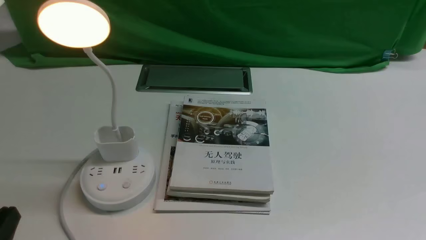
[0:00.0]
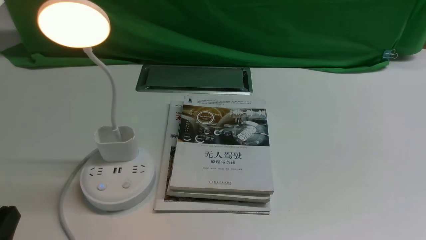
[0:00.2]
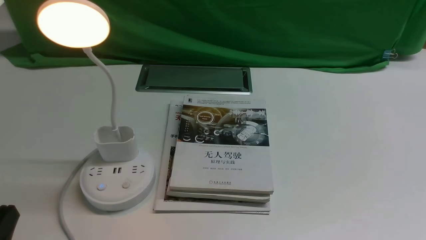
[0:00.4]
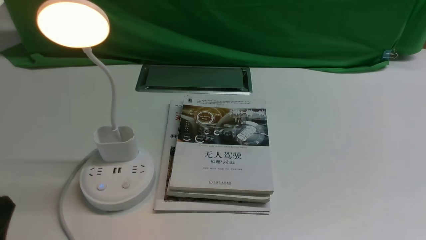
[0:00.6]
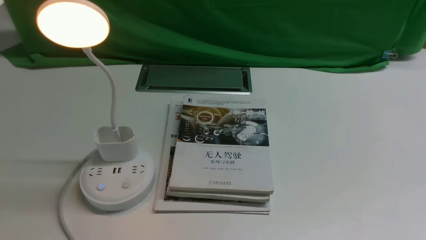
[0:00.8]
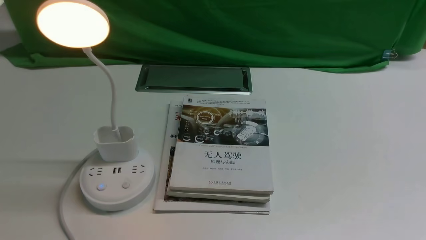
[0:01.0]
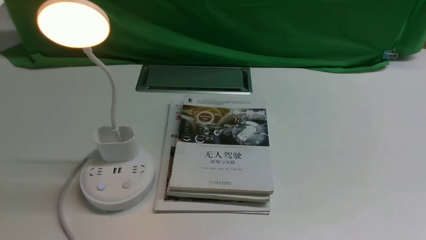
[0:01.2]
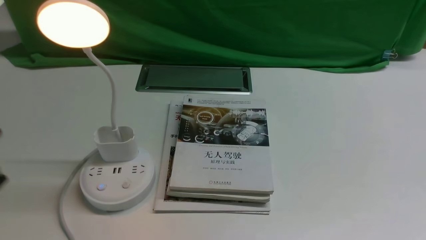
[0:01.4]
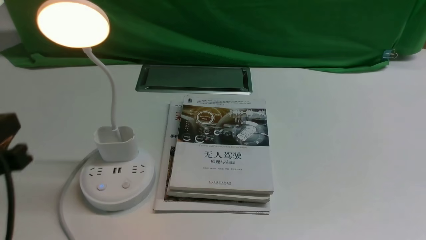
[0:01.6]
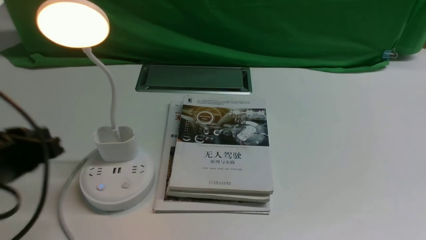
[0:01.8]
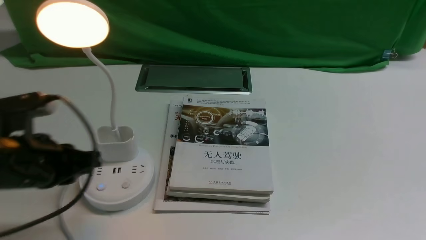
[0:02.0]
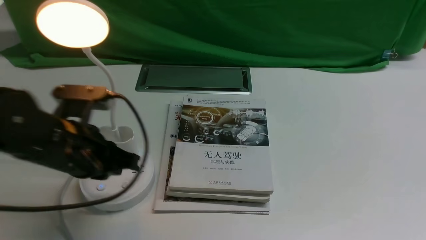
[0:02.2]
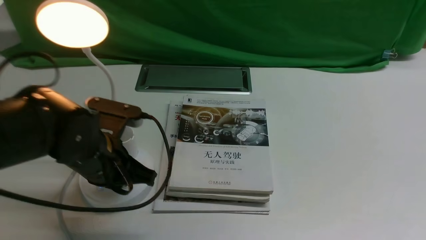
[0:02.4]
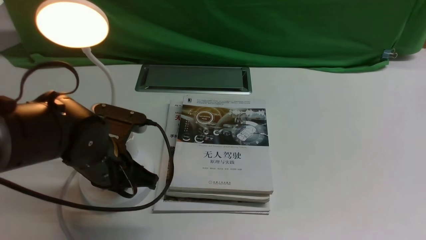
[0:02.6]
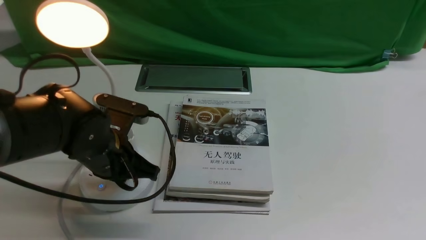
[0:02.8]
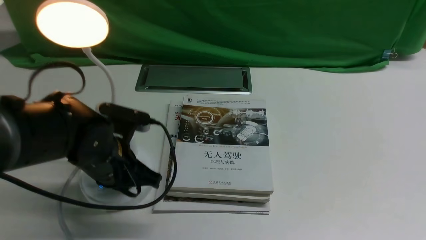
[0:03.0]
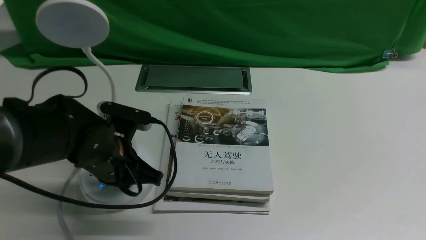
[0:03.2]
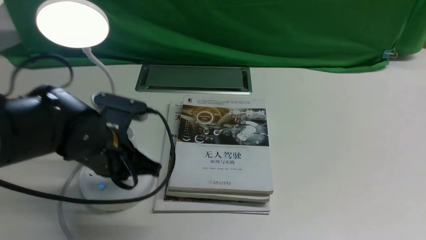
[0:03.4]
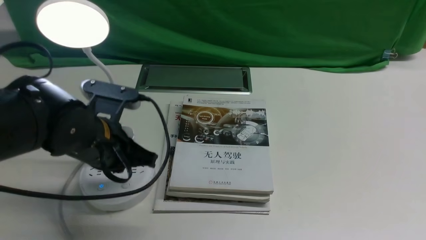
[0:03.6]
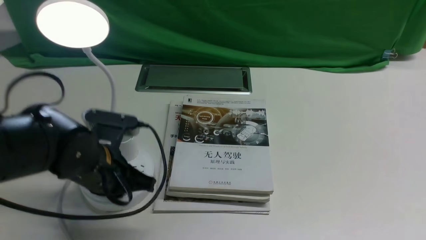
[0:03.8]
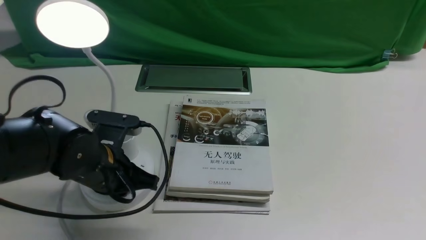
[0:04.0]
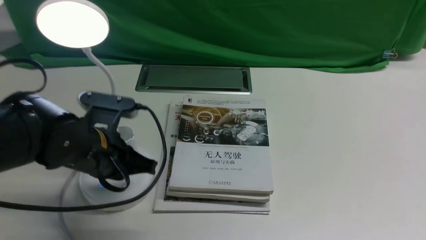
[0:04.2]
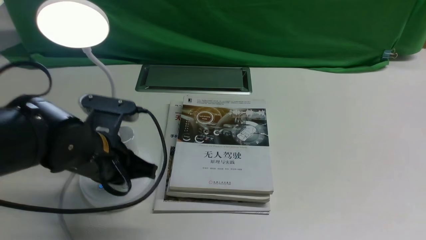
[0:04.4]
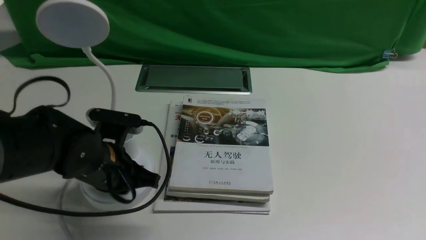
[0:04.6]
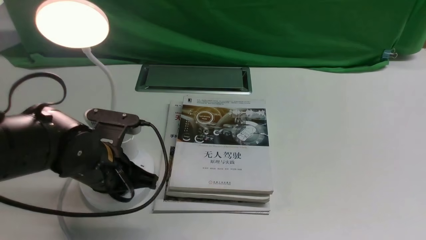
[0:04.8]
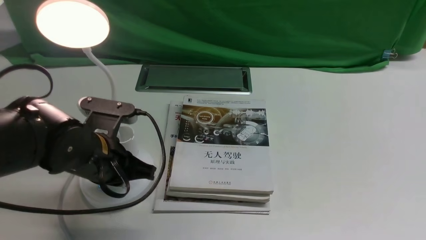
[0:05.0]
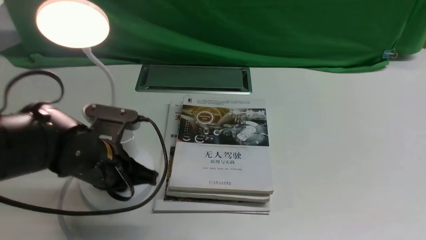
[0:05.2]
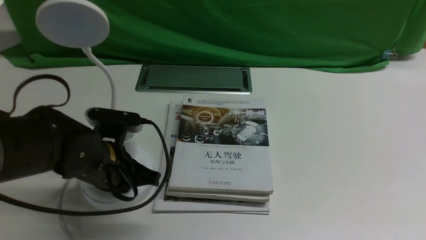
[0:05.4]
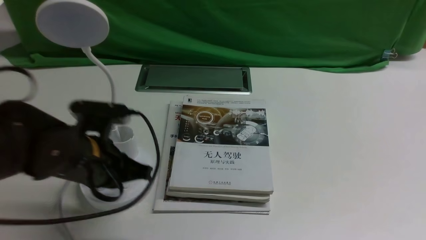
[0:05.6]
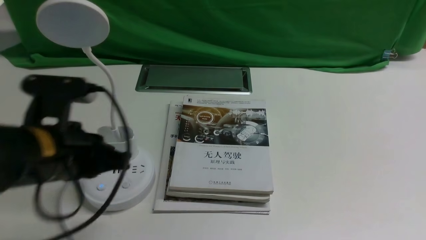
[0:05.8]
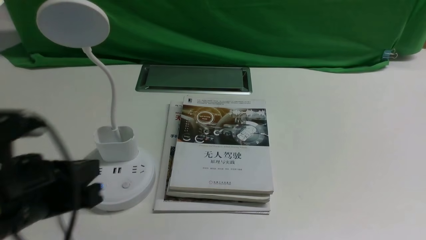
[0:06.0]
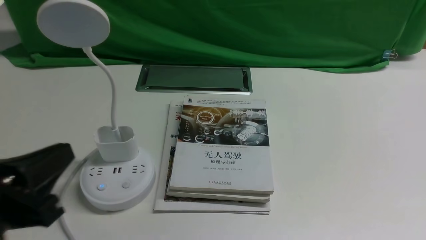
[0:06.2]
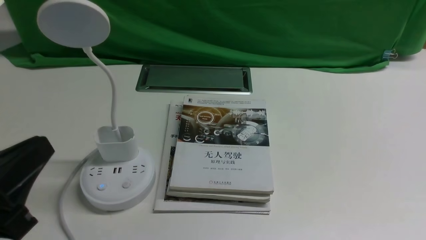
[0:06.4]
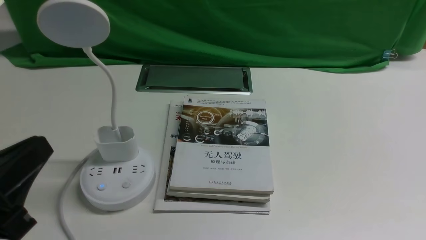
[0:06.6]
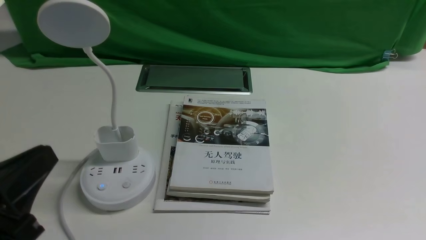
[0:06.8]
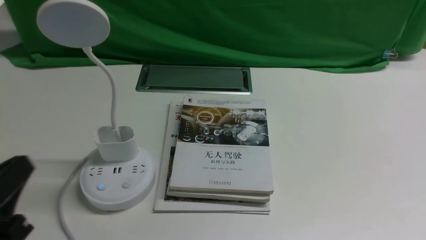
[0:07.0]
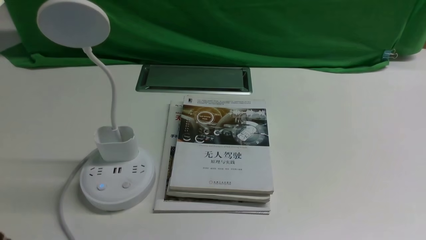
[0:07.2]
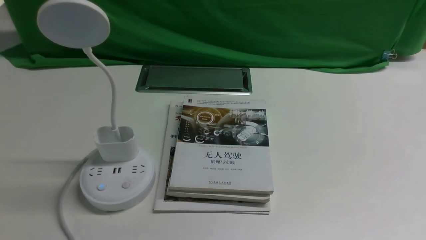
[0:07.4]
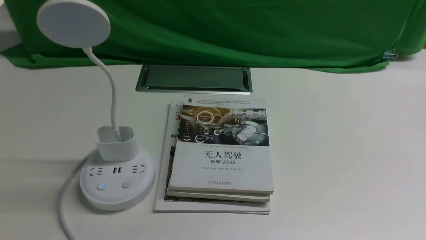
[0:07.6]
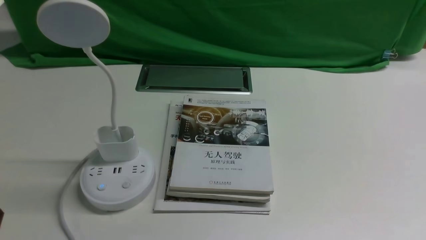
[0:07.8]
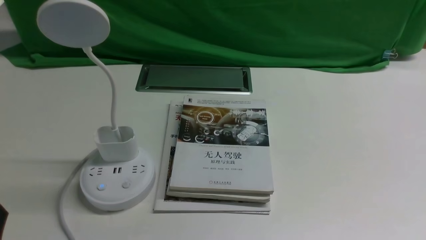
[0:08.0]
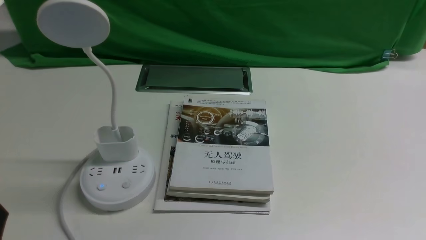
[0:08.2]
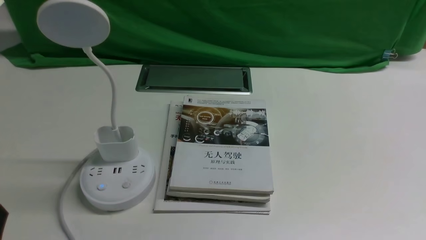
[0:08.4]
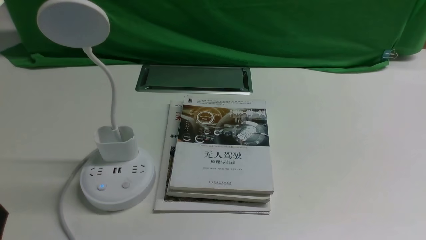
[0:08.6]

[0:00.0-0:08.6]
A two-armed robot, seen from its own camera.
Task of the whole recording: turn off the desk lamp on the white desktop by hand.
Step, 0:00.0 to 0:05.6: use the left arm to press the button switch on the lamp holder.
0:00.0 to 0:01.4: The left gripper shifts about 10 cm upward.
0:01.4 to 0:02.8: The left gripper moves forward, downward and to the right, approximately 25 cm.
0:02.8 to 0:04.4: The grippers move only a little.
0:04.4 to 0:05.8: The left gripper is displaced backward and upward by approximately 10 cm.
0:05.8 to 0:07.2: The left gripper travels backward and to the left by roughly 15 cm.

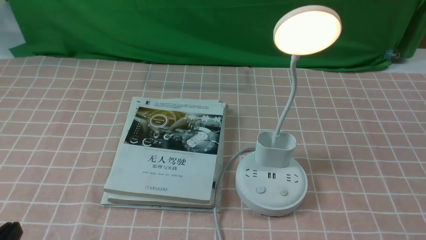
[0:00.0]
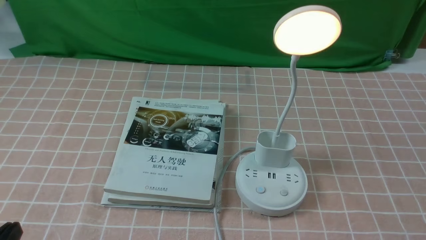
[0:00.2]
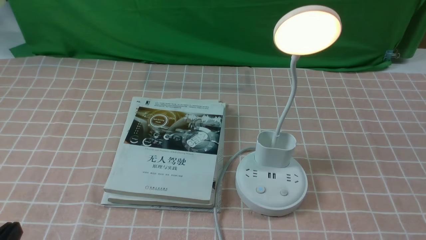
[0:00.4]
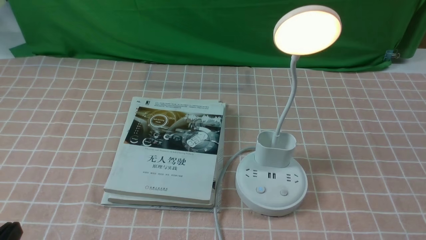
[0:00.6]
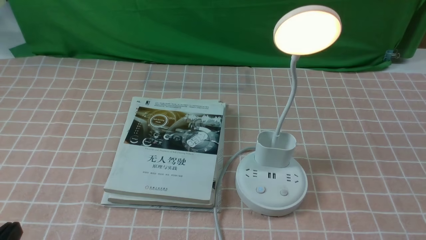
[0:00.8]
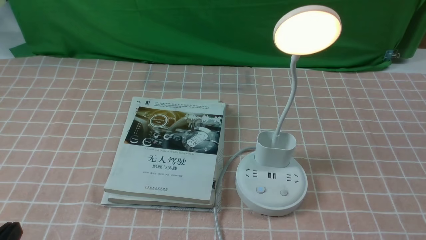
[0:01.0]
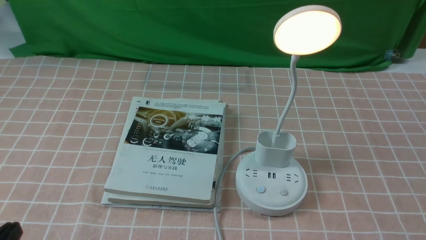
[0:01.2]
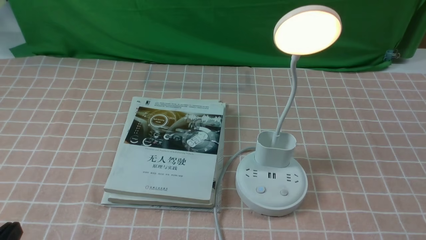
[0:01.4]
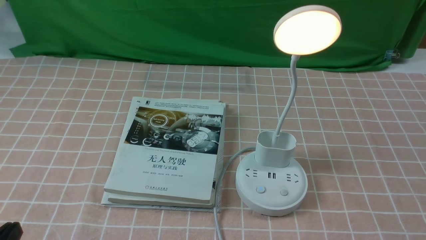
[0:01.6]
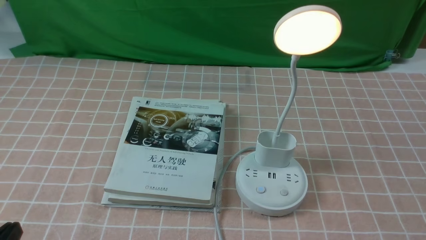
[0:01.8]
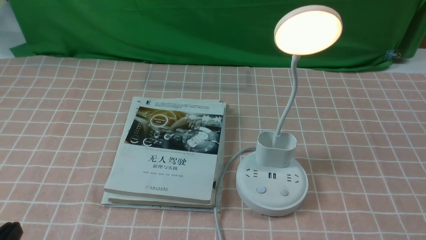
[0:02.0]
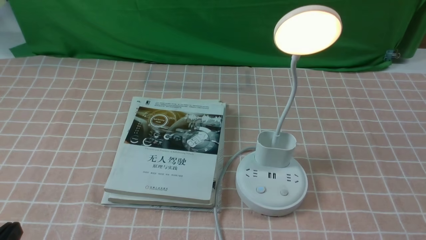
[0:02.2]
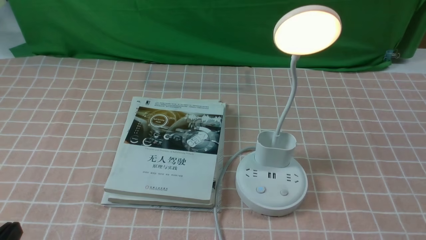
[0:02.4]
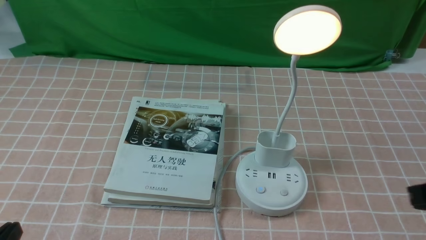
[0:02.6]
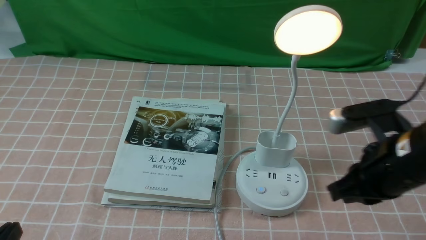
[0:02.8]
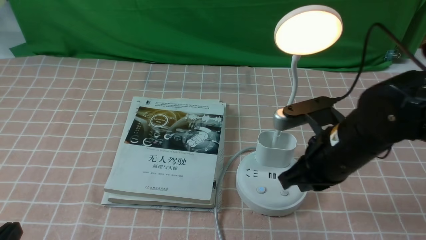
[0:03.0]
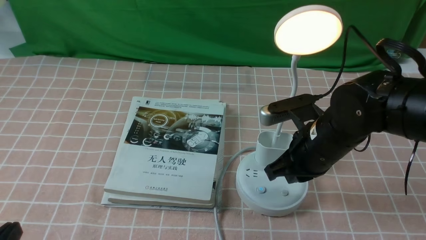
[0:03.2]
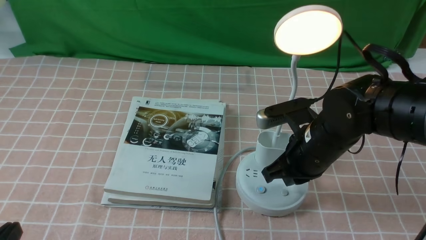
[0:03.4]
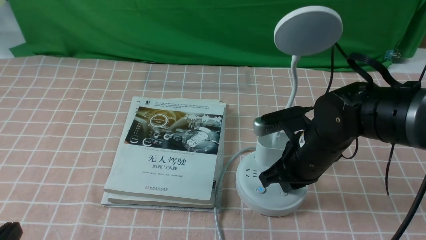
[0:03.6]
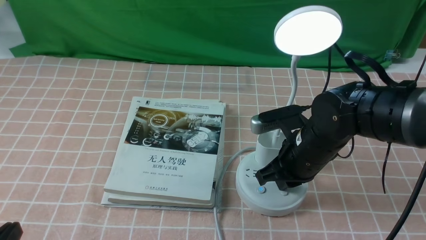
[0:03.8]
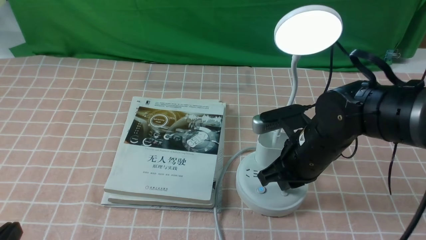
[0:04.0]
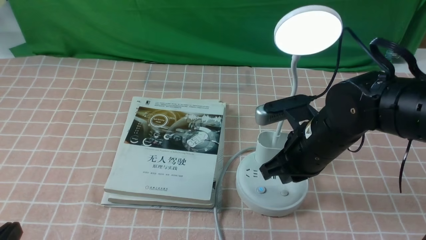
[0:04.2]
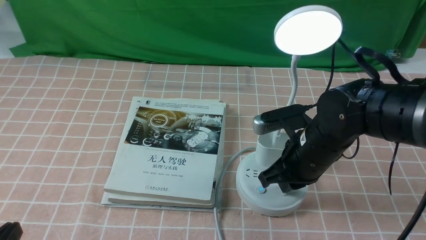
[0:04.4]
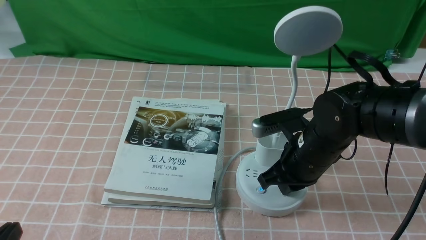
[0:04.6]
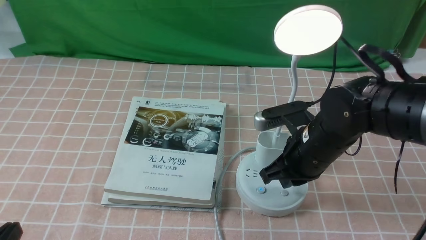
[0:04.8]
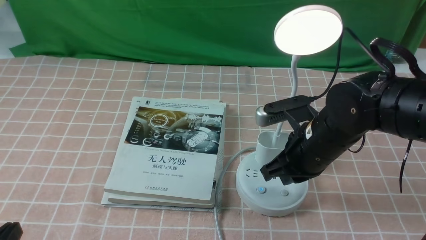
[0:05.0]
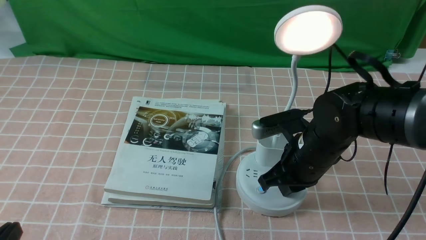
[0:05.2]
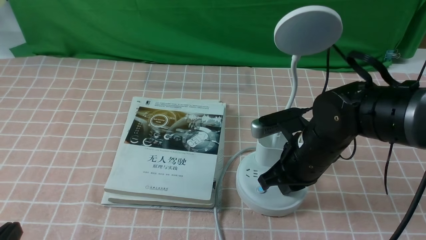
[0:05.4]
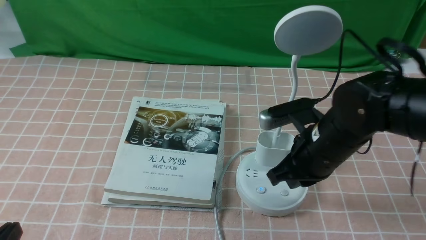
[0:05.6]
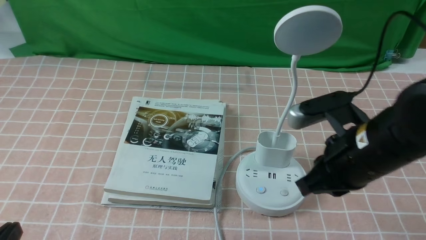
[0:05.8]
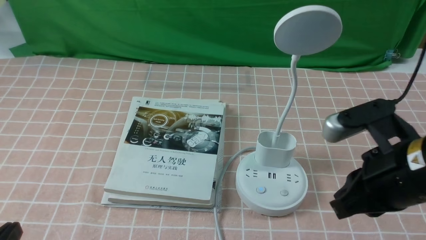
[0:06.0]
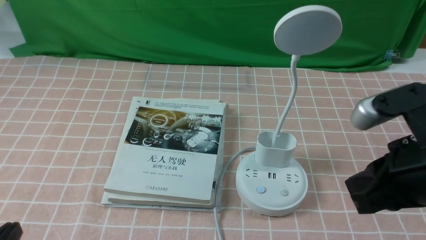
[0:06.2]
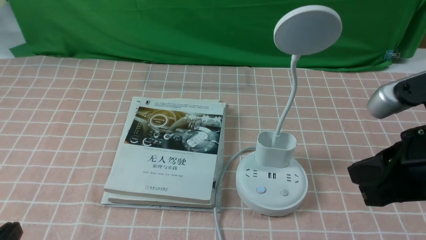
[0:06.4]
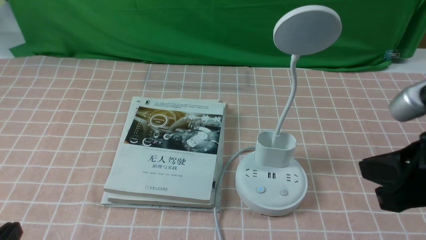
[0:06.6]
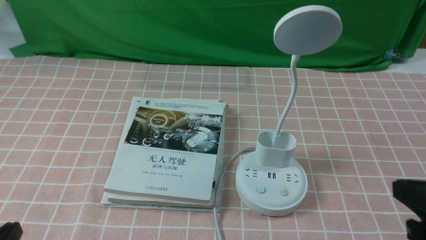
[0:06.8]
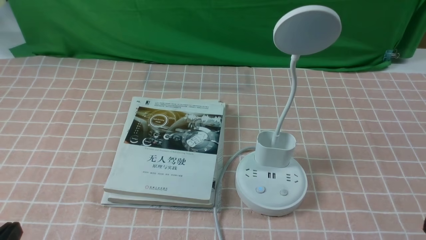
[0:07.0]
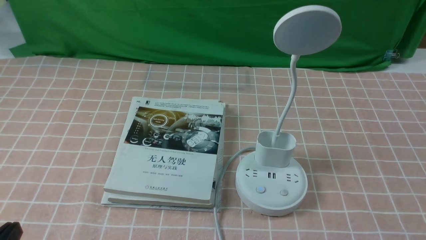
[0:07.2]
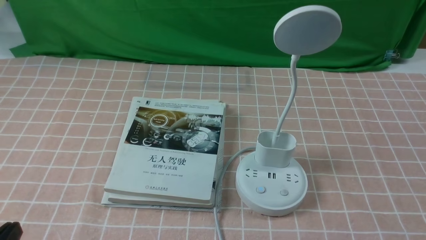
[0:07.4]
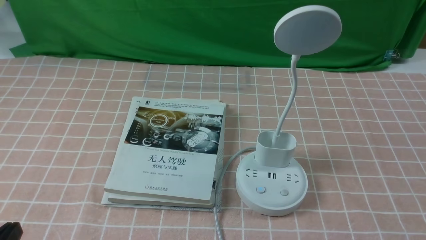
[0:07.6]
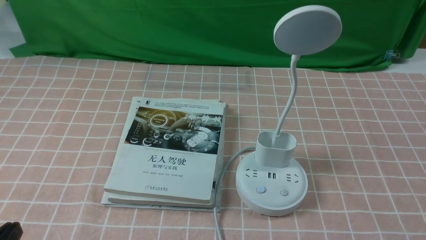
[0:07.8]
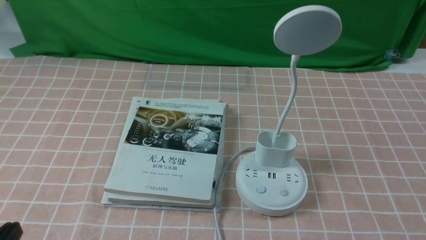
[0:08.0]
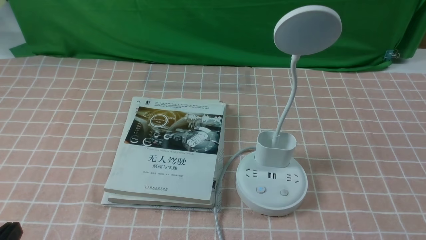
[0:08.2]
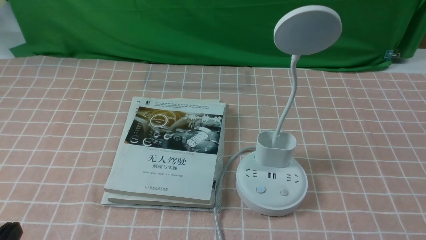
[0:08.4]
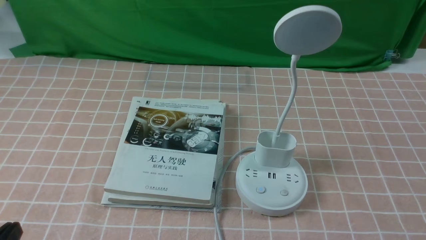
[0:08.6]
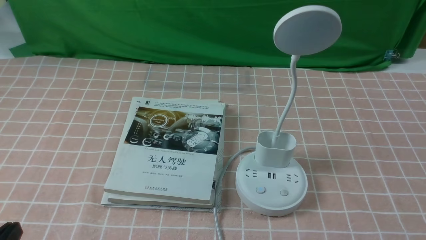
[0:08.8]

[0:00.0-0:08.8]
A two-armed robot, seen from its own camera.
Task of the whole recording: turn off the table lamp on the pink coffee tablecloth by hand.
Step, 0:00.0 to 0:05.6: use the right arm to press the button switch on the lamp holder.
0:01.4 to 0:03.0: The right gripper goes roughly 25 cm forward and to the left, and closes.
0:03.0 to 0:04.4: The right gripper moves approximately 5 cm.
0:04.4 to 0:05.8: The right gripper travels upward and backward by roughly 10 cm.
0:05.8 to 0:07.4: The right gripper heads backward, to the right and downward, covering roughly 25 cm.
0:07.4 to 0:08.8: Both grippers stay put.
